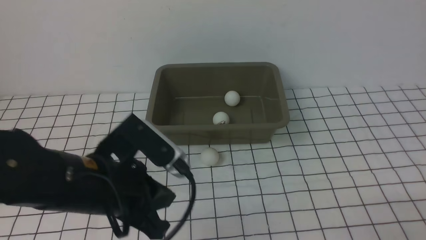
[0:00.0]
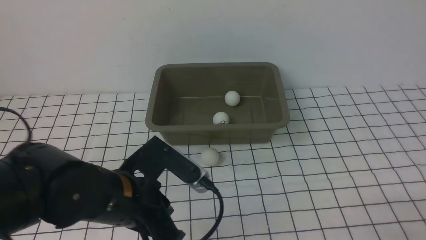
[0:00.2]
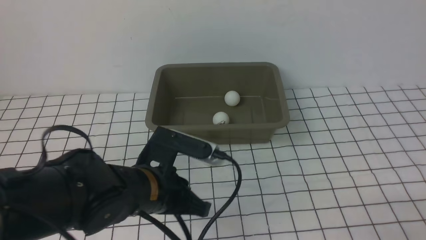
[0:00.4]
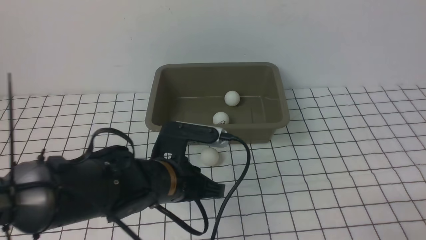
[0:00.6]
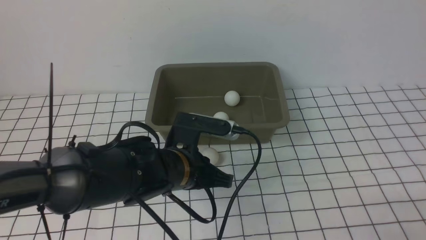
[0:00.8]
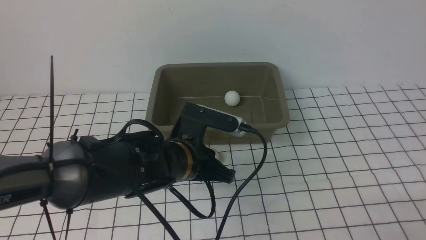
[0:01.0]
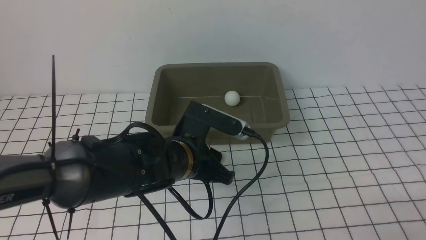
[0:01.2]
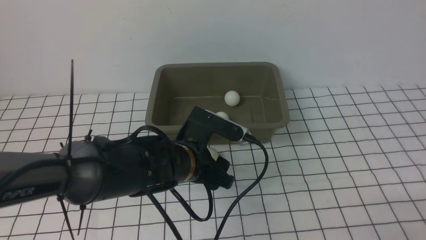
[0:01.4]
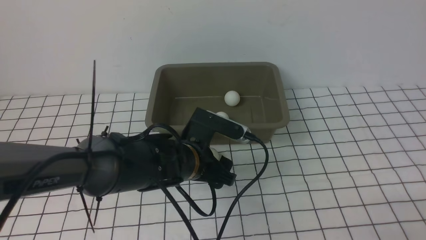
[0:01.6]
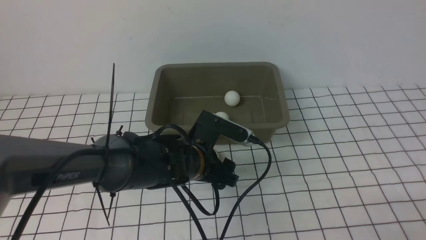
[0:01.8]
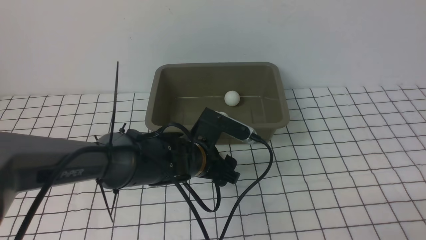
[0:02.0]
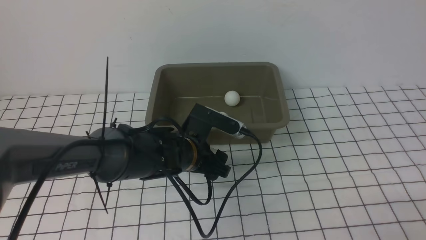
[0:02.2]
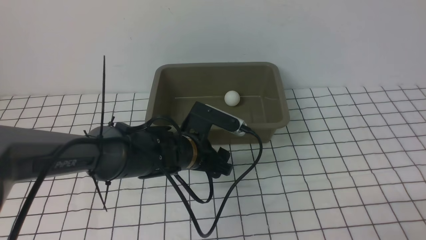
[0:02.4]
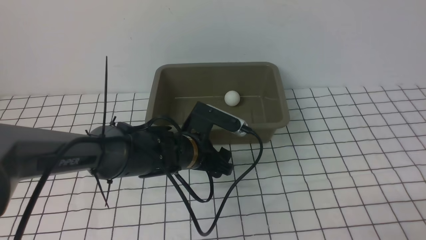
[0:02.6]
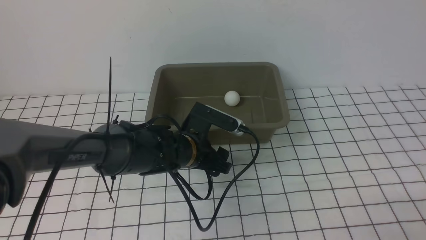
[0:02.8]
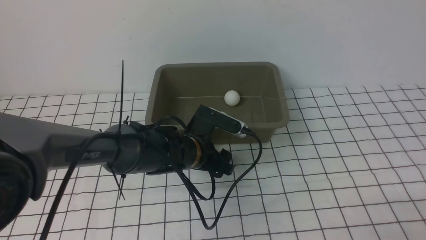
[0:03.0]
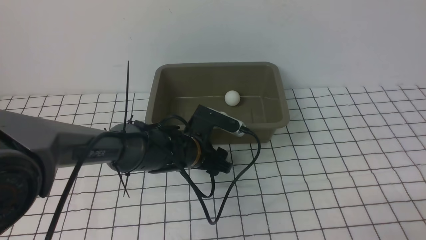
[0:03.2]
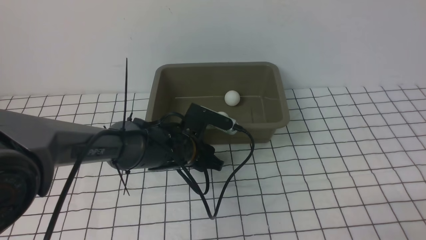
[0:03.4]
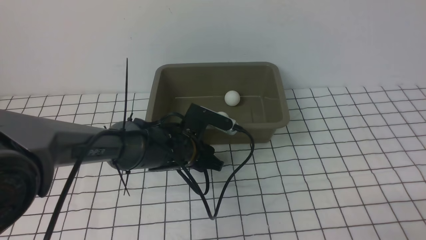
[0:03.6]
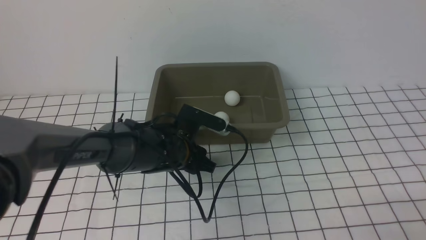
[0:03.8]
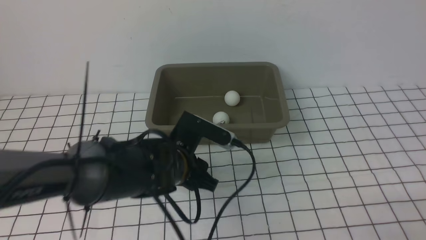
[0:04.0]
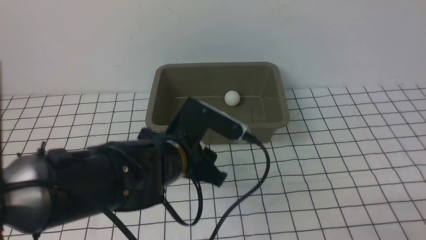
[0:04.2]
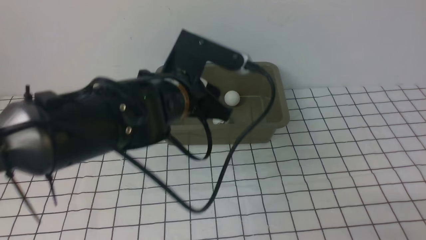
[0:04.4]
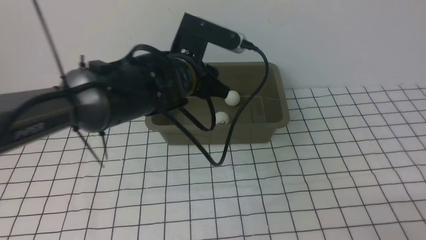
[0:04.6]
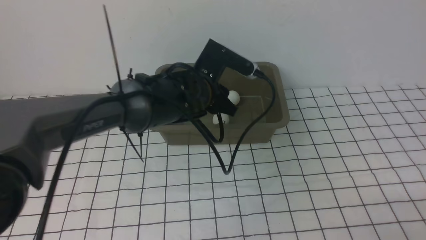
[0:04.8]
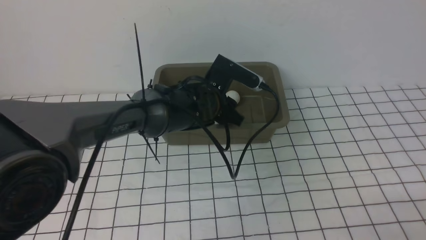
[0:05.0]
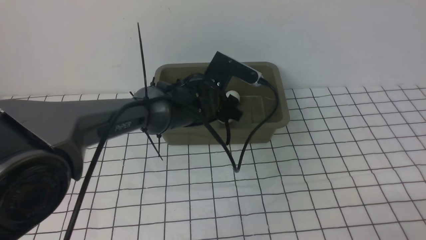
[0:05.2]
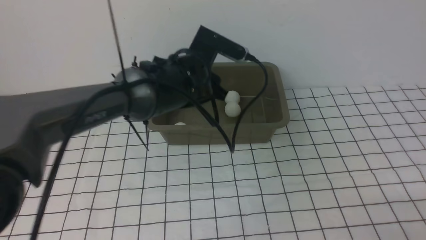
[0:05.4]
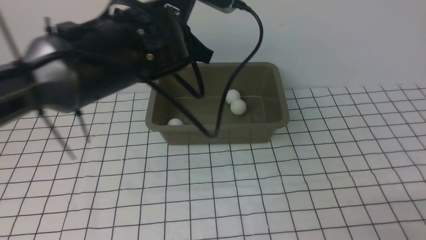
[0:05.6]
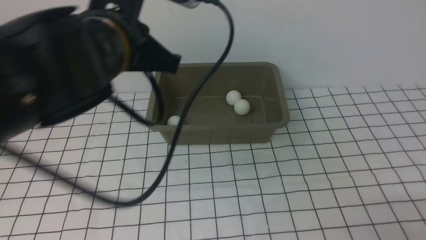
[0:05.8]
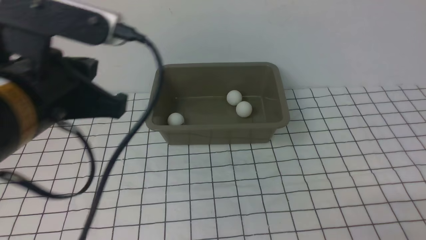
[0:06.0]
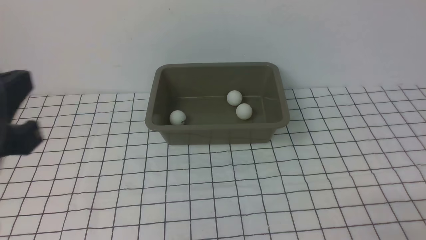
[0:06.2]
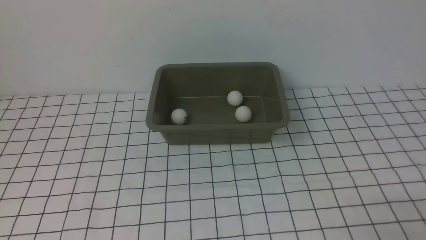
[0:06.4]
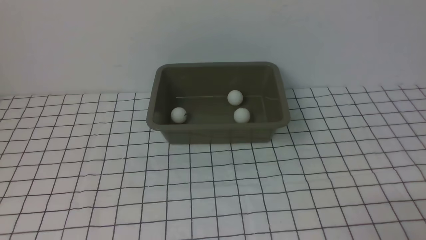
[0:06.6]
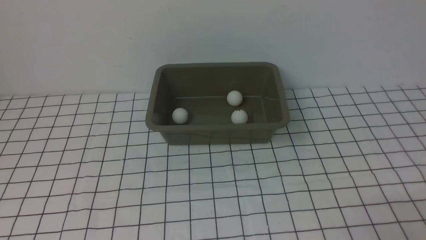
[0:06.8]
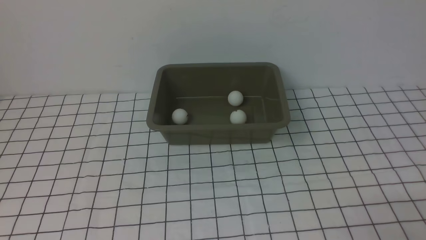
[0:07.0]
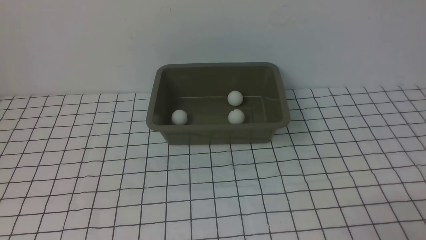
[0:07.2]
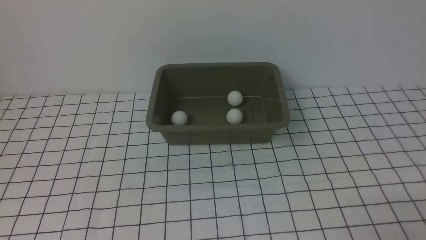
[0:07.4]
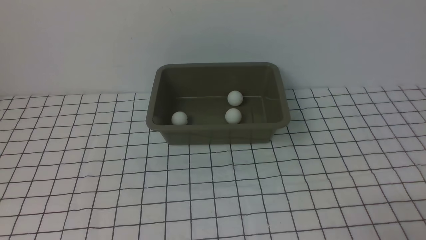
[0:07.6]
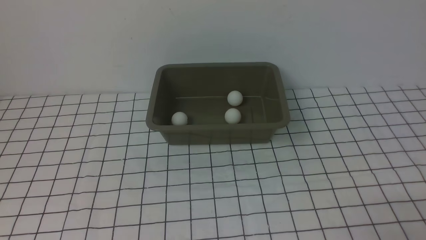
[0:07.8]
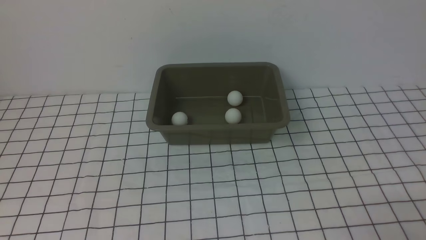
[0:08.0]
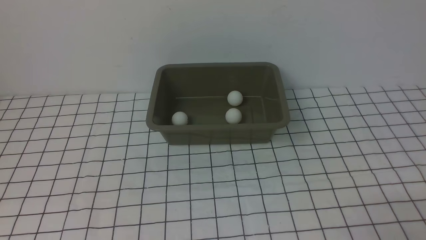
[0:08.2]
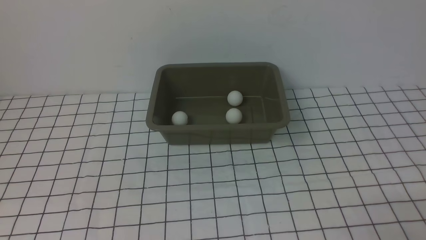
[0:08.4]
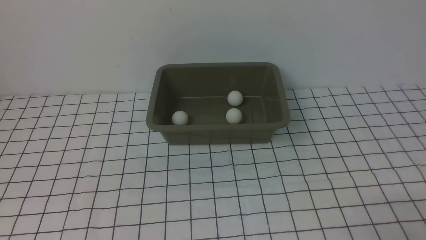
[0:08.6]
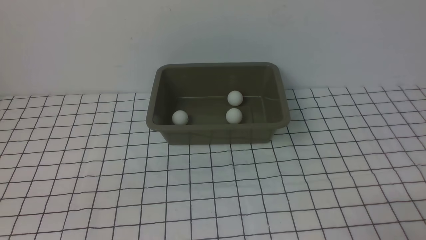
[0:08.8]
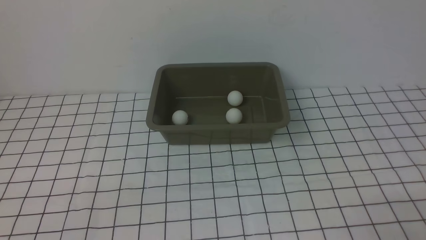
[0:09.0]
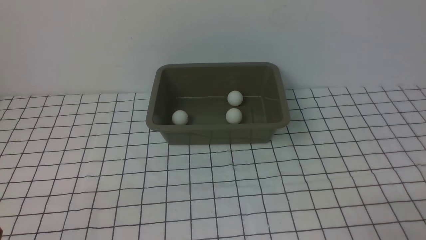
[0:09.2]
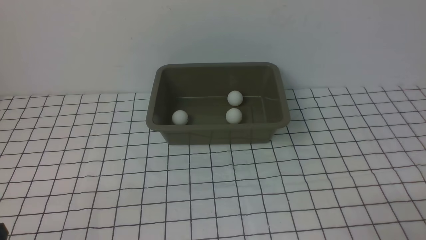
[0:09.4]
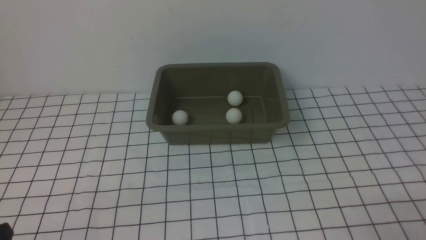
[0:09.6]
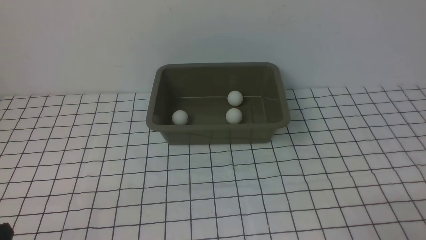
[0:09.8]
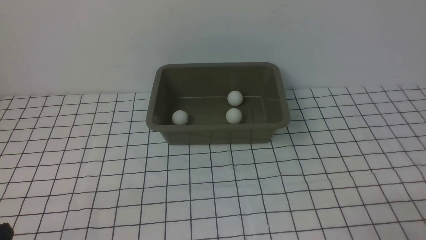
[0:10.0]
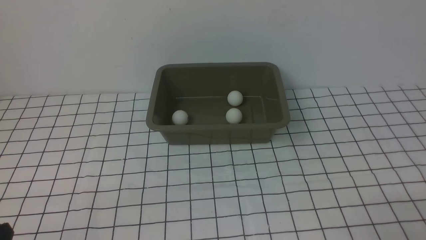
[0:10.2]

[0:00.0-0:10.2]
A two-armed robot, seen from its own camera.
Step, 0:00.0 to 0:04.0: use the left arm to clamp the table tennis ball closest to it.
Step, 0:04.2 to 0:05.6: use the left arm to put the table tennis ball into the box.
0:00.0 to 0:01.4: The left gripper heads to the right, downward and forward, covering some 15 cm, and opens.
0:01.4 to 0:03.0: The left gripper shifts roughly 10 cm forward and downward.
0:03.0 to 0:04.4: The left gripper heads upward and backward, covering roughly 15 cm.
0:04.4 to 0:05.8: The left gripper goes approximately 10 cm upward, and closes up.
0:05.8 to 0:07.2: The left gripper heads backward and to the left, covering roughly 35 cm.

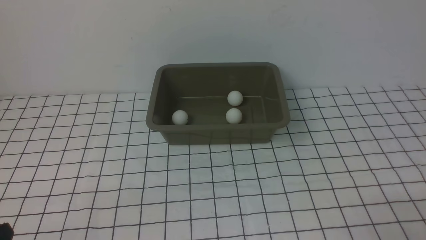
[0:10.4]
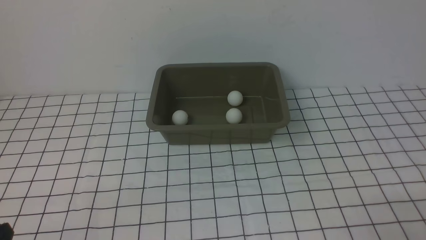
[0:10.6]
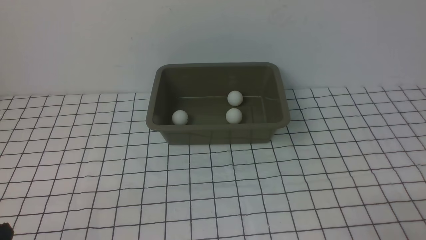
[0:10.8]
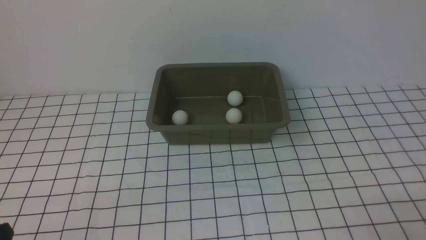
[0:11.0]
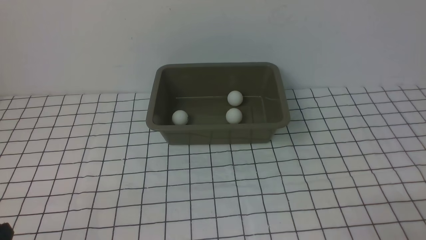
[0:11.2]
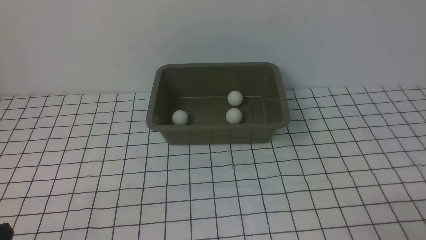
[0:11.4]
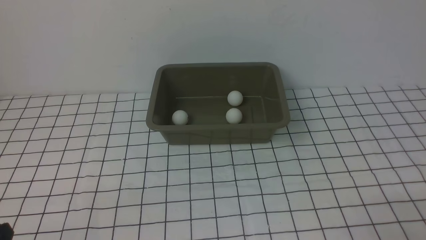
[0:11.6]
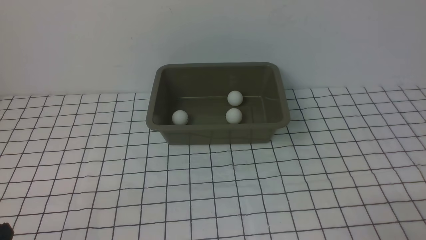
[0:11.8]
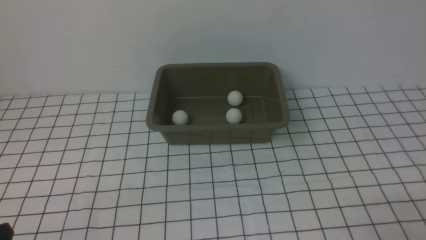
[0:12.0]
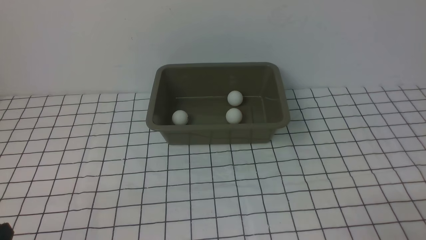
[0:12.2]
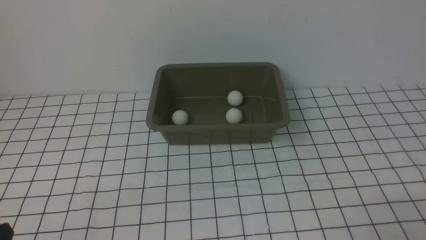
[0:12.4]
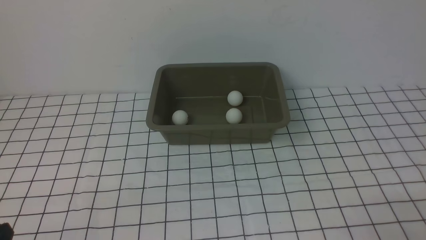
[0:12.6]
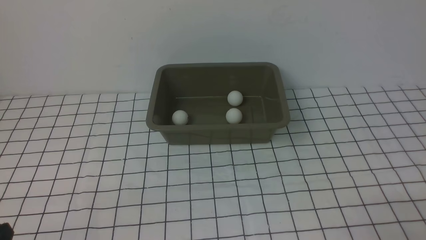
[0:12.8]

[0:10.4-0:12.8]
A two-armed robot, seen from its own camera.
0:10.4 to 0:12.8: Both grippers stay about where they are.
